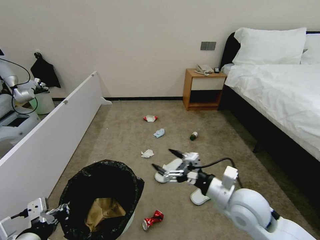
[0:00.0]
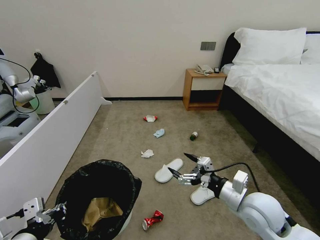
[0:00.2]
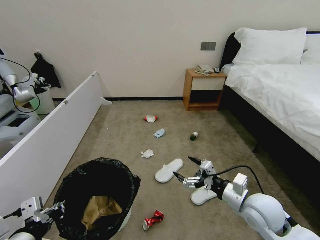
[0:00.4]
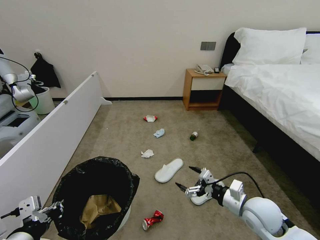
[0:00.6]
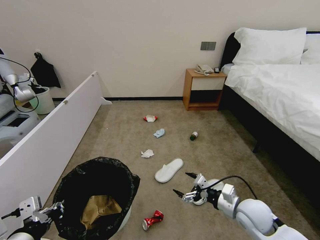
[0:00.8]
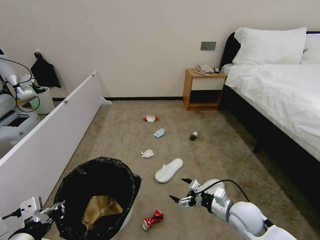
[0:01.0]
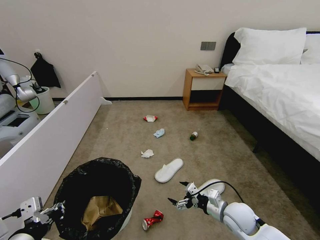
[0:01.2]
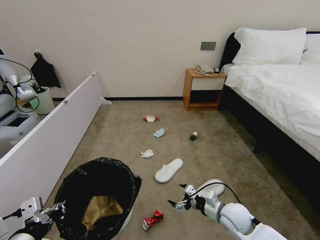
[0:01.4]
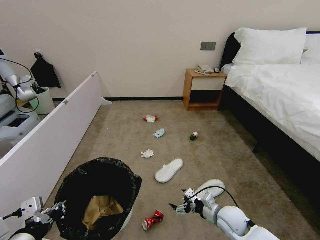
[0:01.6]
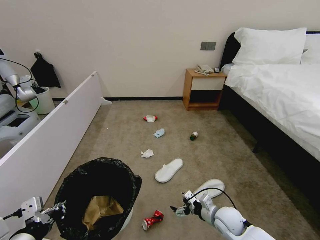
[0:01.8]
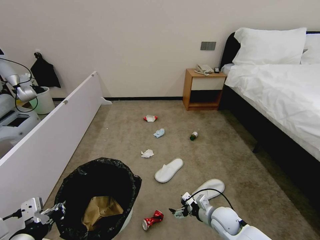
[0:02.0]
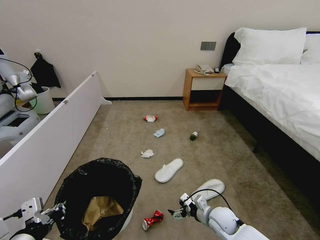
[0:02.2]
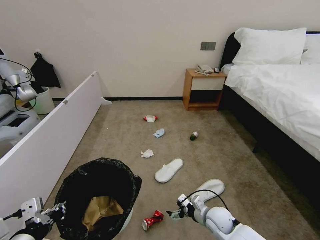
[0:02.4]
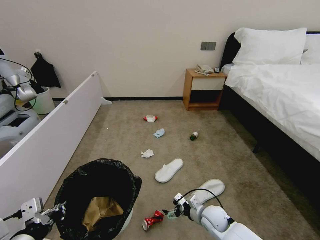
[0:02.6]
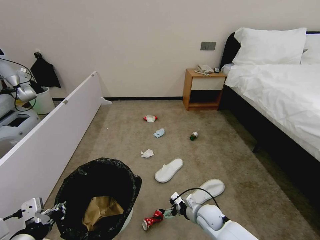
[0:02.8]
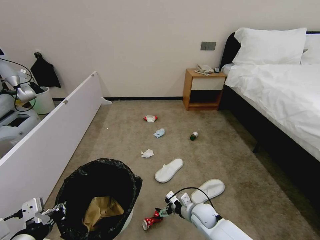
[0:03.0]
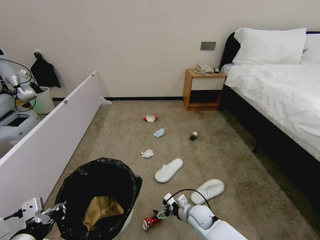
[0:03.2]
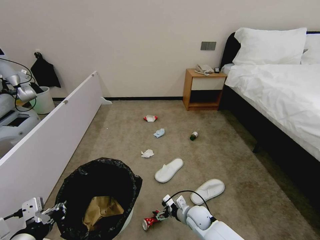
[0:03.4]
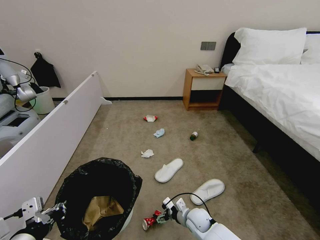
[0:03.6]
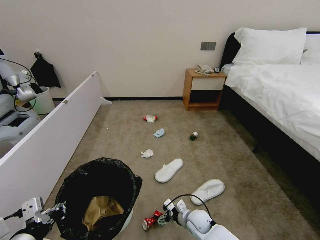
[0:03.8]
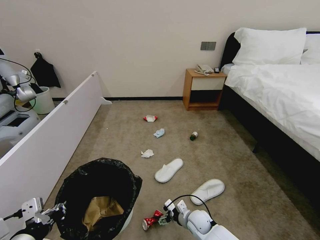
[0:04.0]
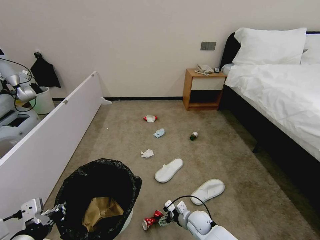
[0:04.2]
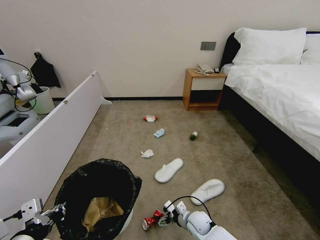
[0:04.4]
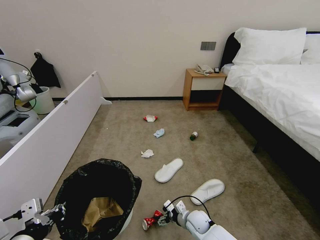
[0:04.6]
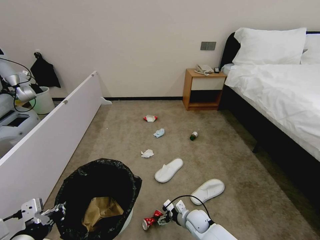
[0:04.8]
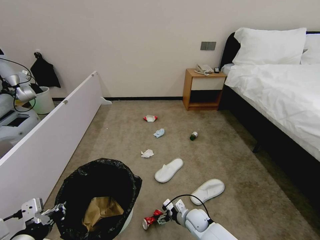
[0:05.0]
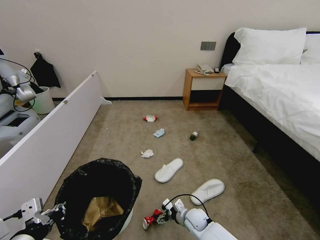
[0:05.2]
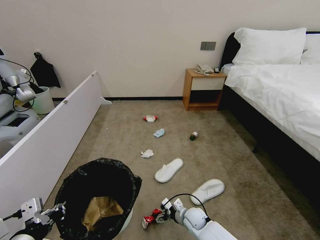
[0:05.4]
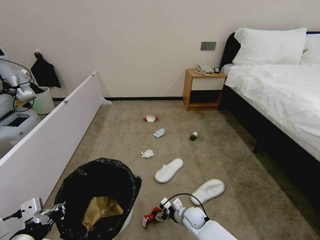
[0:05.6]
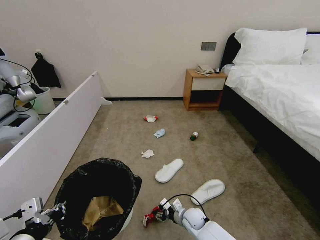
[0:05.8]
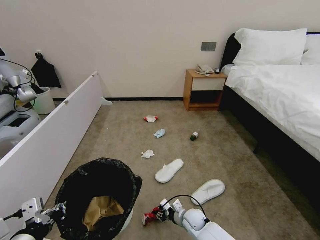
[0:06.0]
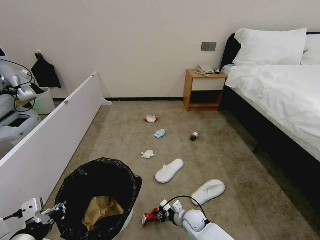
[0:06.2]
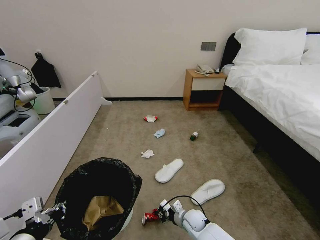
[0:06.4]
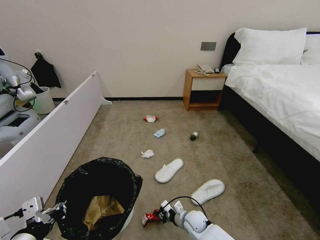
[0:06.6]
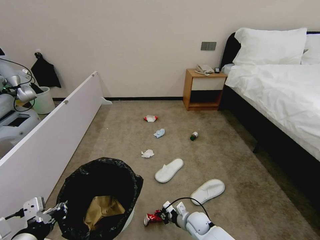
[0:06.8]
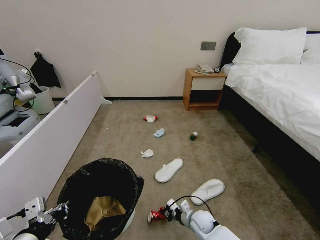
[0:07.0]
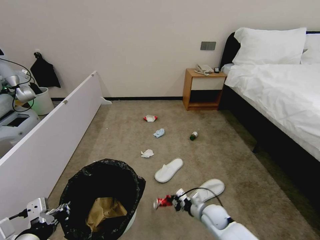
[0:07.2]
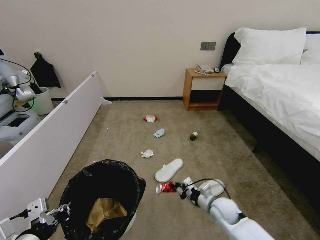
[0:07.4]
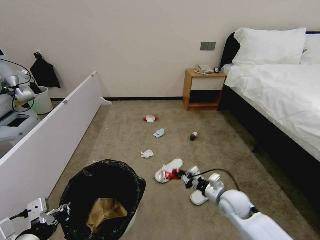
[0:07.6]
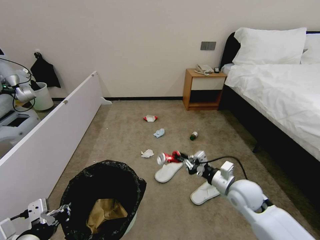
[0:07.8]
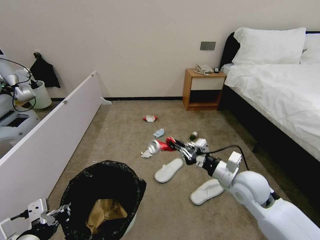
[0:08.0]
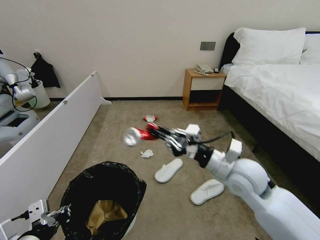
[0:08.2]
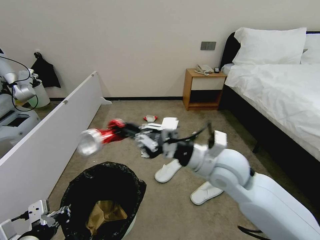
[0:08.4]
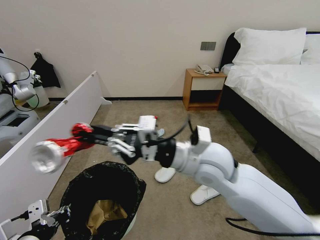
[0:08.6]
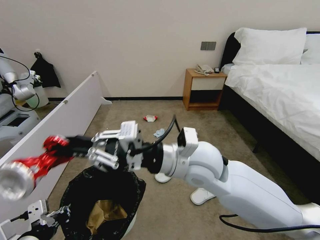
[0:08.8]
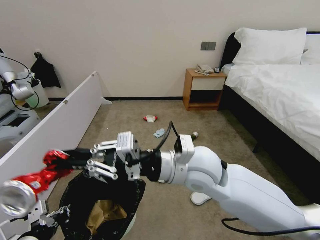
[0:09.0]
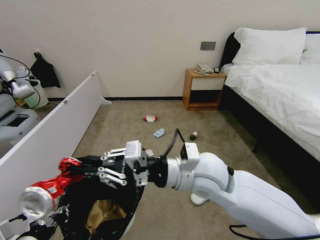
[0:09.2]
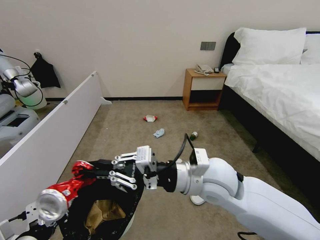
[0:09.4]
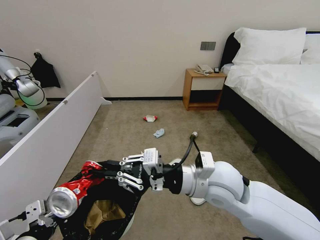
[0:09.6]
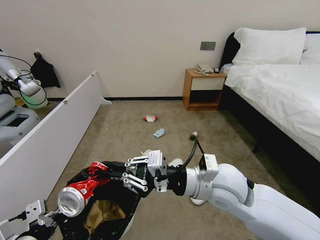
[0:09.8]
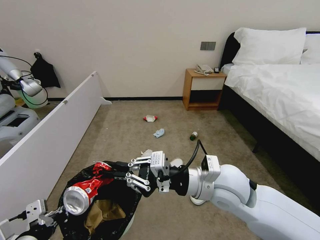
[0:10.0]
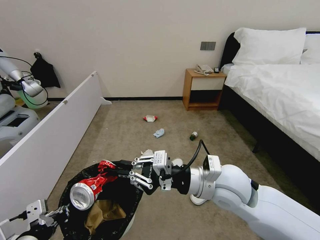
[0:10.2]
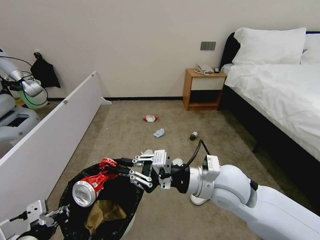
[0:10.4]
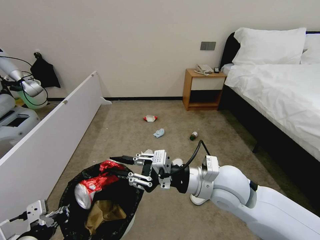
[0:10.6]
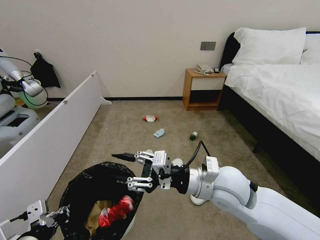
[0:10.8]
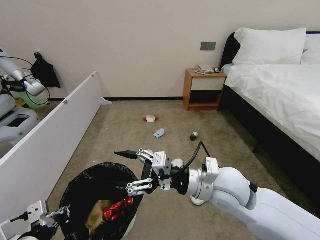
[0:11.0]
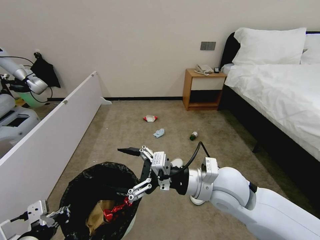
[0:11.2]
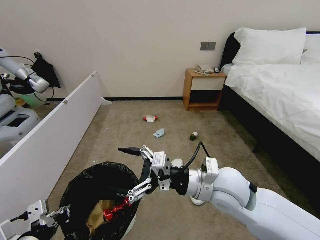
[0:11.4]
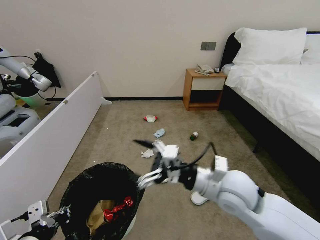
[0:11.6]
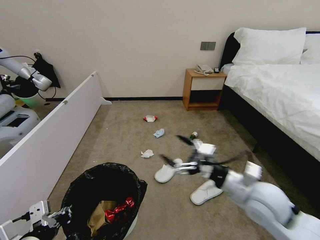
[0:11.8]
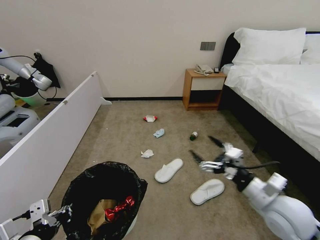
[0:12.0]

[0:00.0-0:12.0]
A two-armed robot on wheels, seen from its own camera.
Task of the whole recording: Pick up the trash bin, then pick up the garbage from the floor and place it into the trash bin.
0:00.0 to 0:01.6: The right gripper moves downward, roughly 20 cm.
0:01.6 to 0:03.0: The right gripper is displaced to the left and downward by about 10 cm.
0:03.0 to 0:04.4: The right gripper shifts by roughly 5 cm.
0:04.4 to 0:06.0: The right gripper closes.
0:06.0 to 0:07.6: The right gripper heads upward and to the right, covering about 20 cm.
0:07.6 to 0:09.0: The right gripper goes approximately 30 cm upward and to the left.
0:09.0 to 0:10.4: The right gripper is displaced to the right by about 5 cm.
0:10.4 to 0:12.0: The right gripper travels to the right and downward by approximately 15 cm, and opens up.

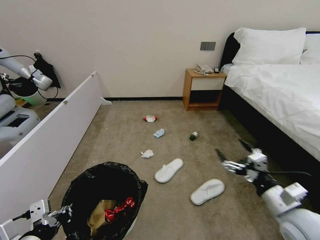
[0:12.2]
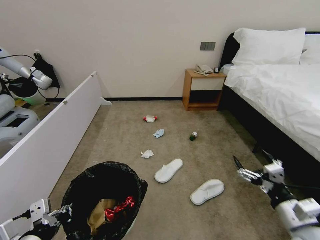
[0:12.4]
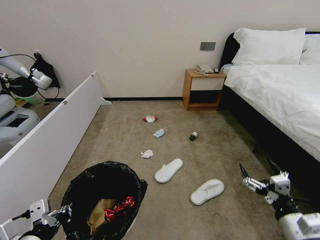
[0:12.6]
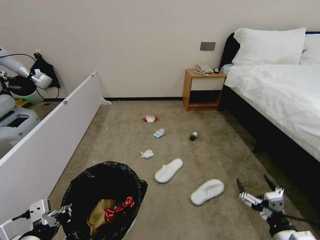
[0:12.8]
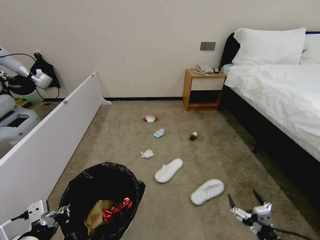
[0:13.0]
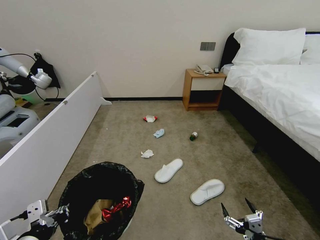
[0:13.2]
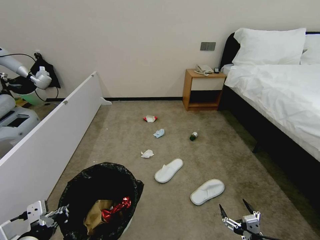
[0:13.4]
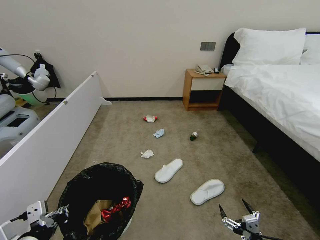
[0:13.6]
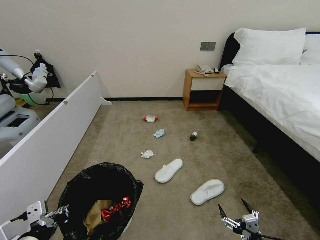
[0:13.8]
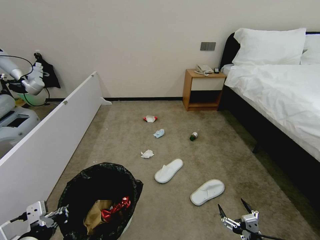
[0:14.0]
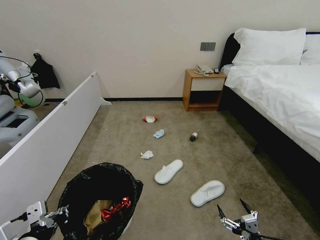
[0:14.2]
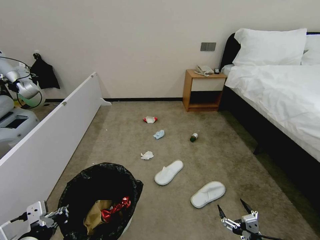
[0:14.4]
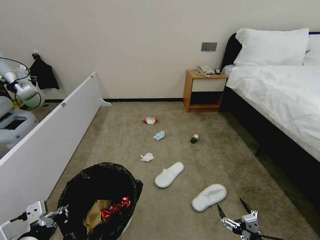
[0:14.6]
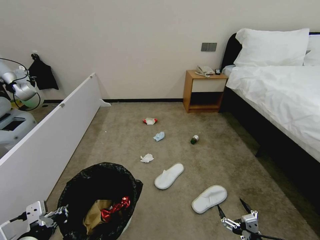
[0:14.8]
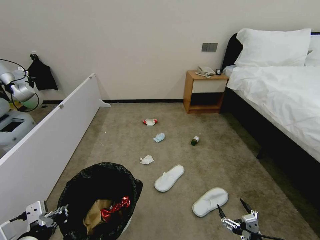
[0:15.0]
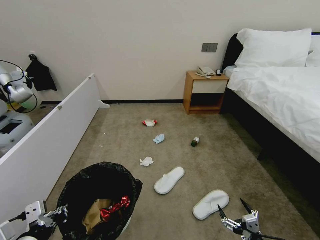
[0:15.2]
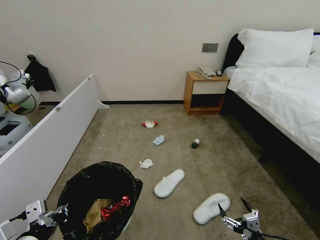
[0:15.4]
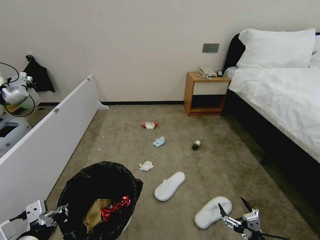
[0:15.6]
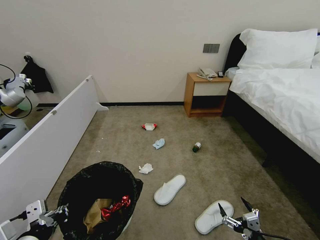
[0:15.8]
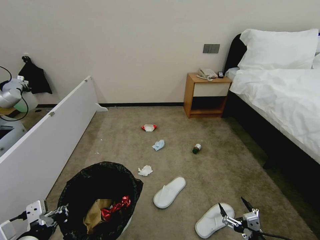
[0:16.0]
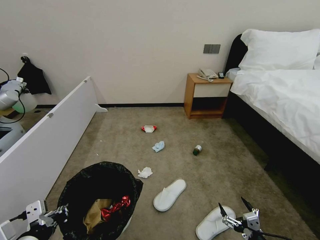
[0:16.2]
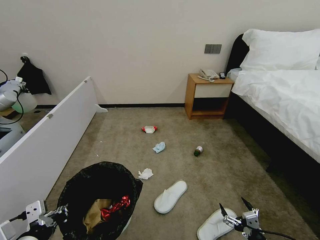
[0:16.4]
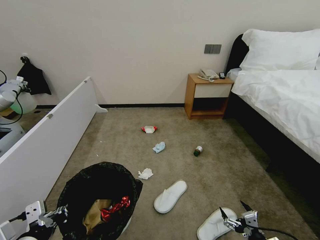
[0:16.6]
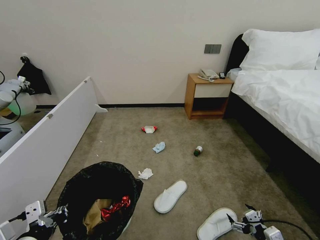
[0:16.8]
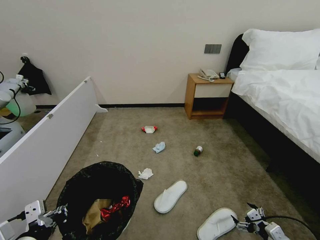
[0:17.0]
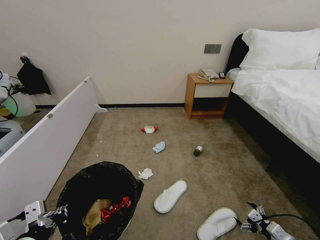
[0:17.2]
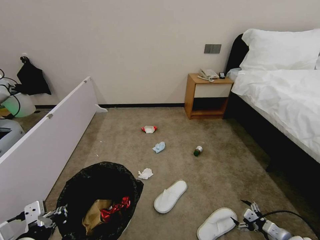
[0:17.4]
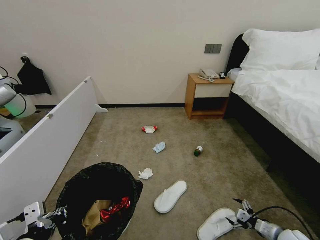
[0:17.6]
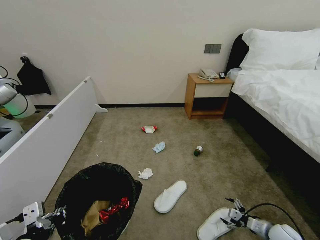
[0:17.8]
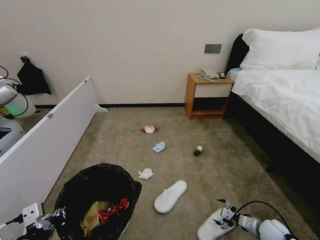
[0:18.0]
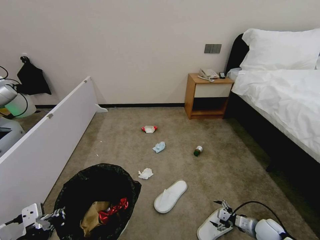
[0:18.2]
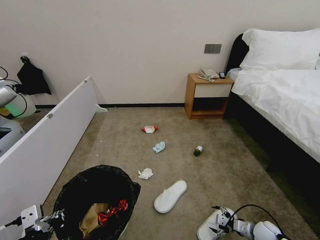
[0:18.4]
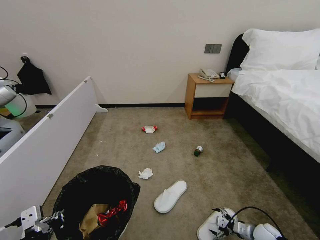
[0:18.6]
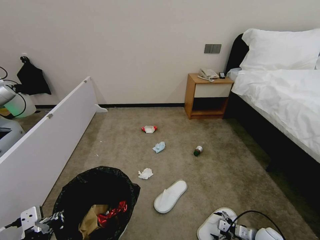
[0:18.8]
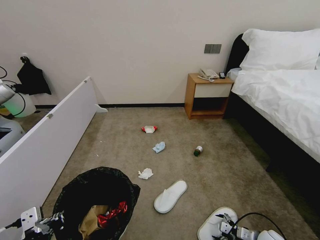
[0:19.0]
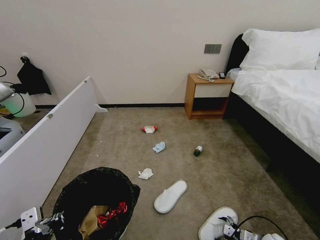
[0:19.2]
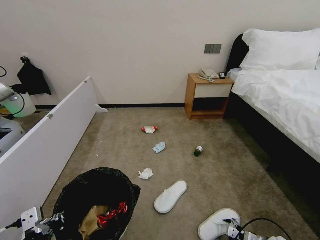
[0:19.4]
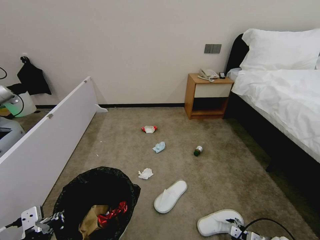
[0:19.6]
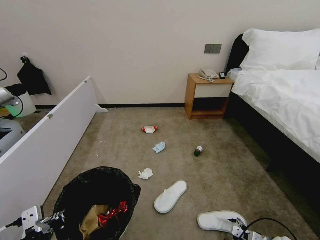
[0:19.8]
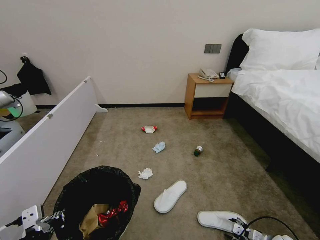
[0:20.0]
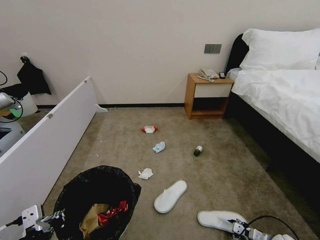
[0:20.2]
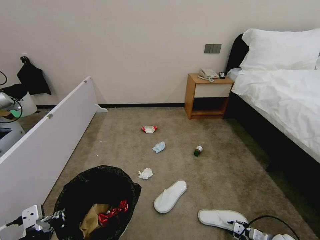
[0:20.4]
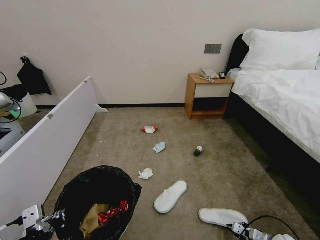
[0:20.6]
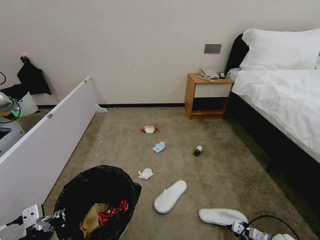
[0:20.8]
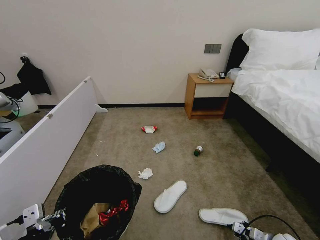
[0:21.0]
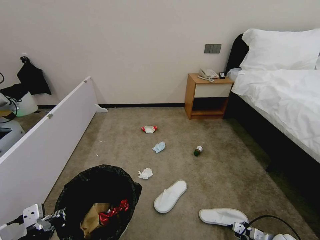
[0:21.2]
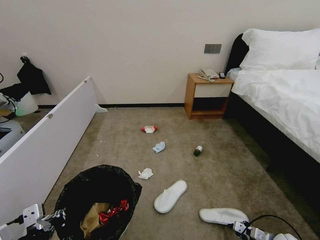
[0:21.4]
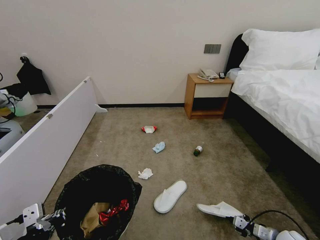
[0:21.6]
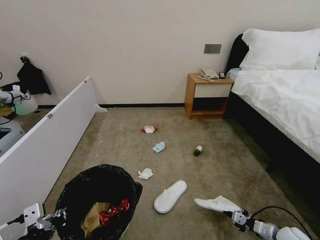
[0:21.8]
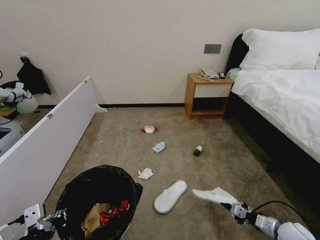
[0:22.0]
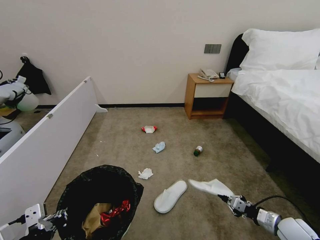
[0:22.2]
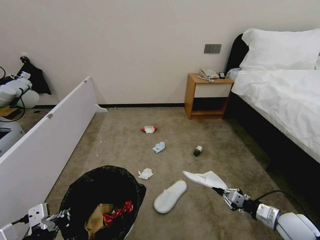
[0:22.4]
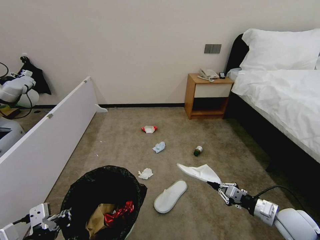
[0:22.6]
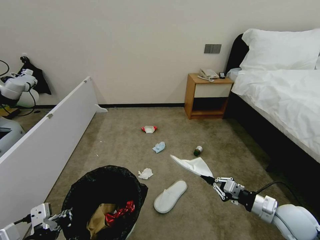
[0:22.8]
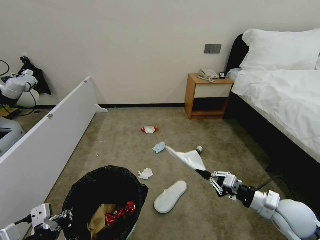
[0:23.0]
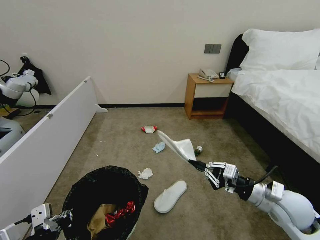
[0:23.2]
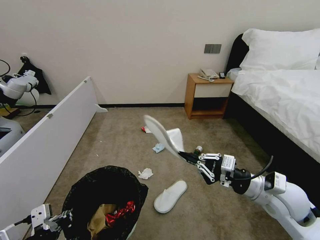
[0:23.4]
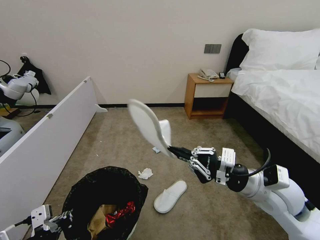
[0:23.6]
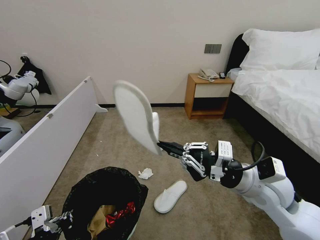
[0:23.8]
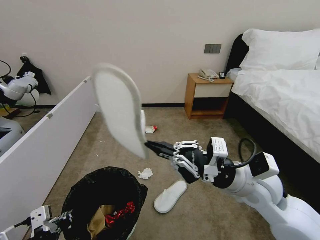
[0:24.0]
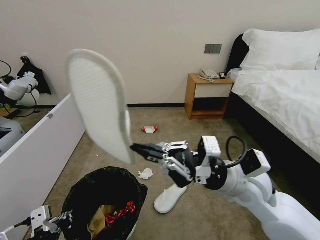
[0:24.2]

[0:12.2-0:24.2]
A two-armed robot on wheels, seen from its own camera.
Task of the whole recording: Pick up the trash bin, then pick up the garbage from the floor and place it into the trash bin.
0:12.2 to 0:13.8: The right gripper travels downward and backward by about 20 cm.
0:13.8 to 0:15.2: Both grippers stay about where they are.
0:15.2 to 0:16.6: The grippers move only a little.
0:16.6 to 0:18.2: The right gripper shifts roughly 20 cm forward, downward and to the right.
0:18.2 to 0:19.8: The right gripper moves roughly 5 cm.
0:19.8 to 0:21.2: The right gripper closes up.
0:21.2 to 0:22.6: The right gripper moves upward, approximately 20 cm.
0:22.6 to 0:24.2: The right gripper is displaced to the left and upward by roughly 30 cm.
